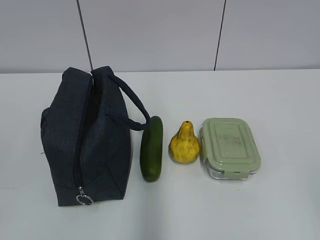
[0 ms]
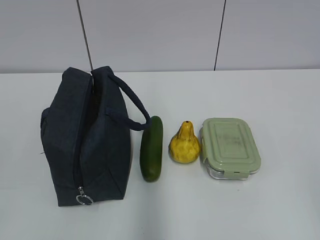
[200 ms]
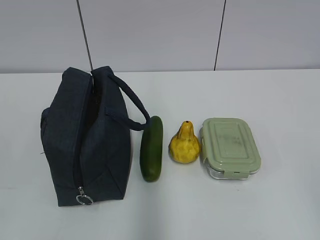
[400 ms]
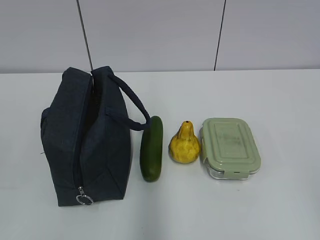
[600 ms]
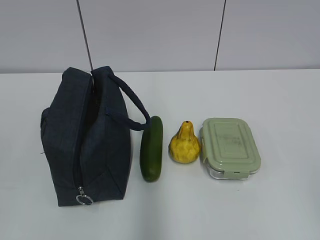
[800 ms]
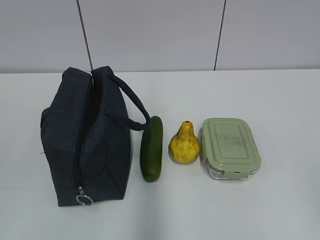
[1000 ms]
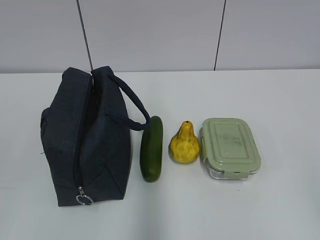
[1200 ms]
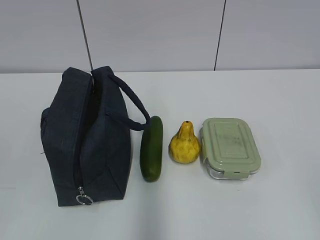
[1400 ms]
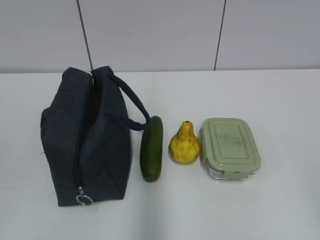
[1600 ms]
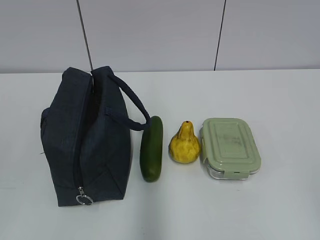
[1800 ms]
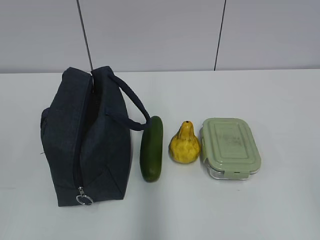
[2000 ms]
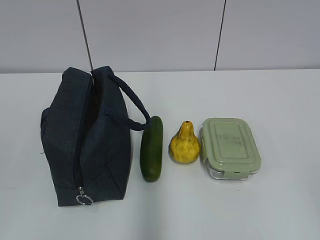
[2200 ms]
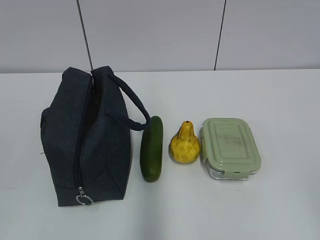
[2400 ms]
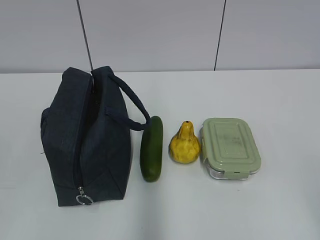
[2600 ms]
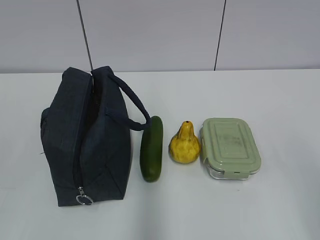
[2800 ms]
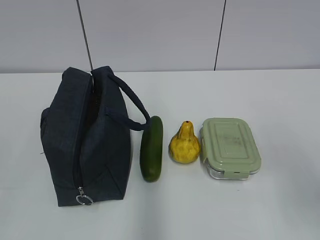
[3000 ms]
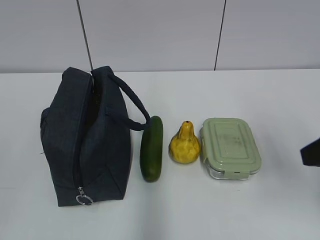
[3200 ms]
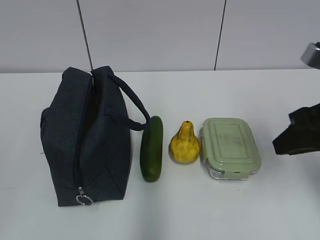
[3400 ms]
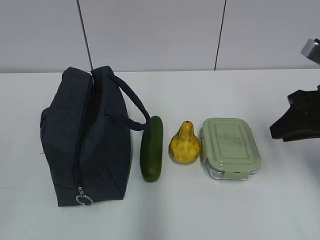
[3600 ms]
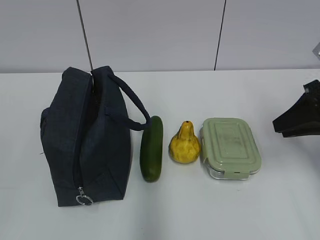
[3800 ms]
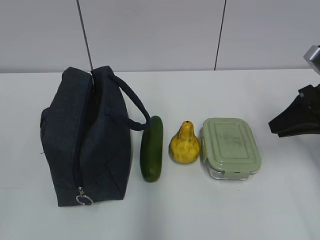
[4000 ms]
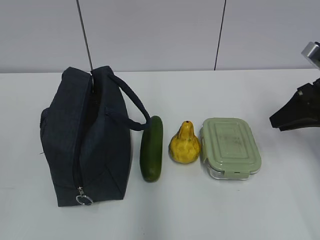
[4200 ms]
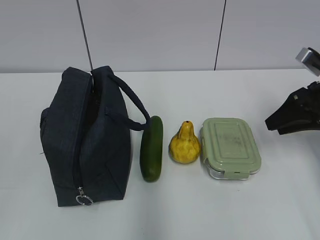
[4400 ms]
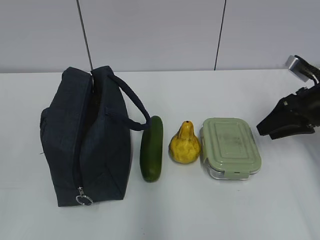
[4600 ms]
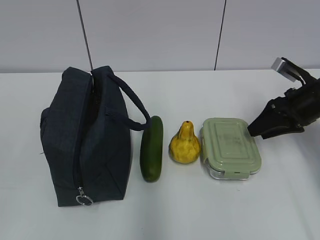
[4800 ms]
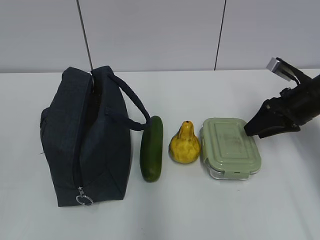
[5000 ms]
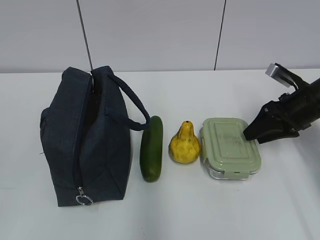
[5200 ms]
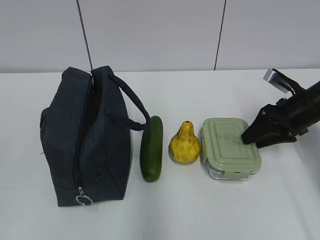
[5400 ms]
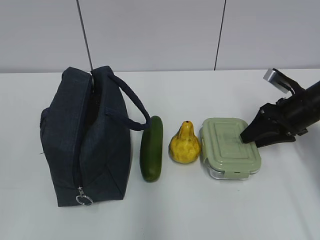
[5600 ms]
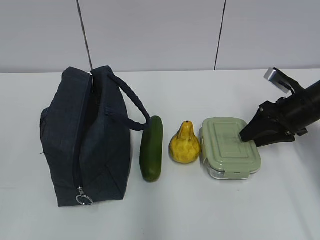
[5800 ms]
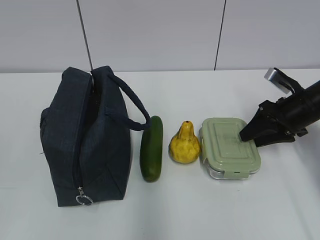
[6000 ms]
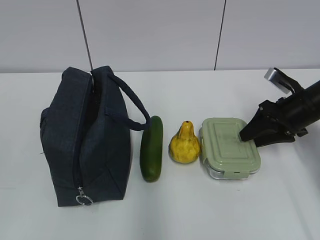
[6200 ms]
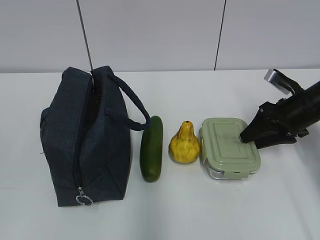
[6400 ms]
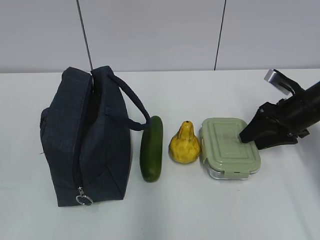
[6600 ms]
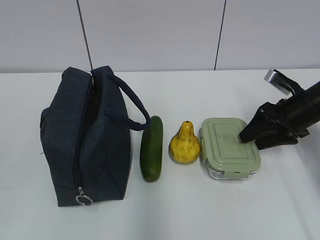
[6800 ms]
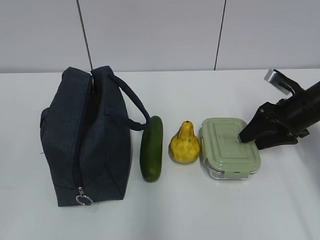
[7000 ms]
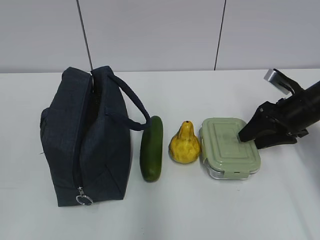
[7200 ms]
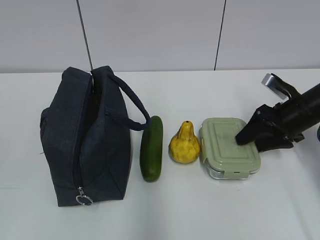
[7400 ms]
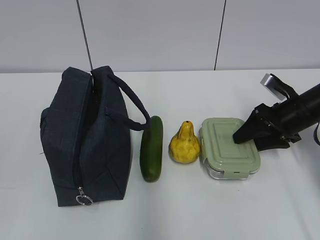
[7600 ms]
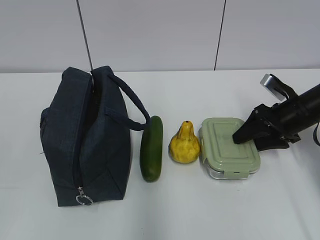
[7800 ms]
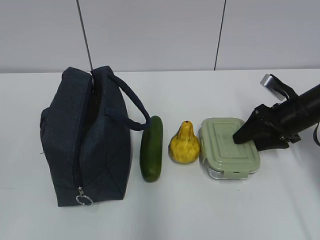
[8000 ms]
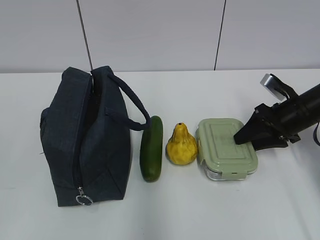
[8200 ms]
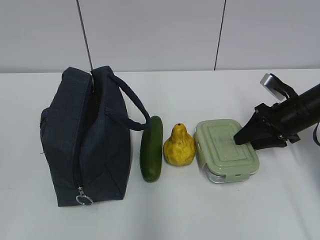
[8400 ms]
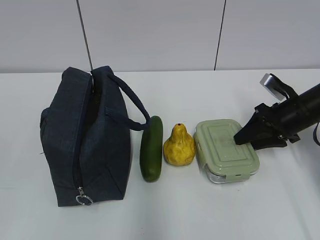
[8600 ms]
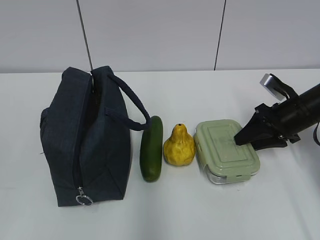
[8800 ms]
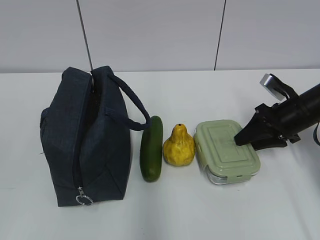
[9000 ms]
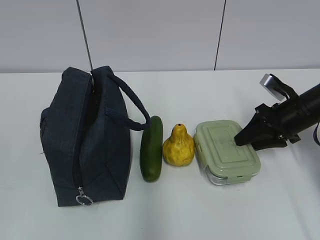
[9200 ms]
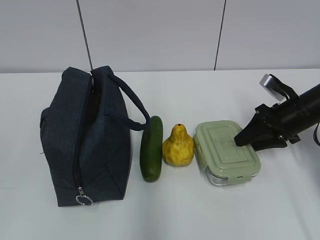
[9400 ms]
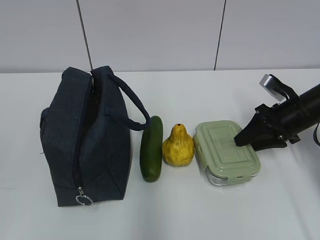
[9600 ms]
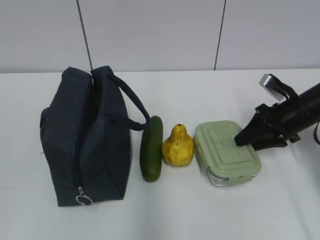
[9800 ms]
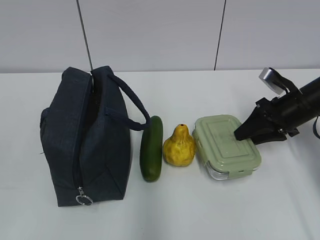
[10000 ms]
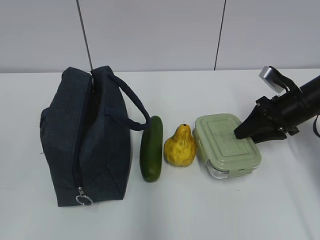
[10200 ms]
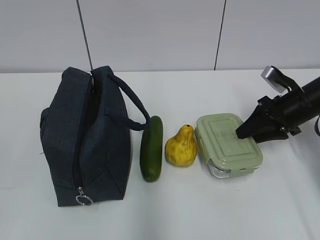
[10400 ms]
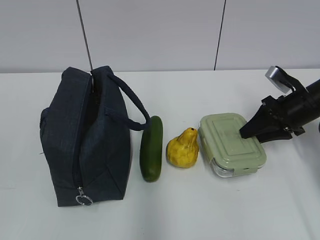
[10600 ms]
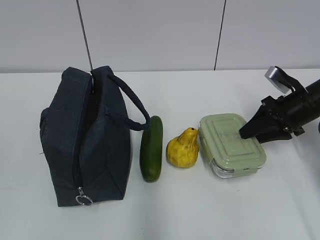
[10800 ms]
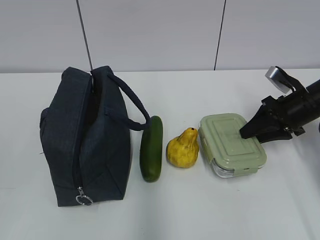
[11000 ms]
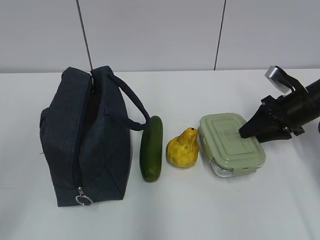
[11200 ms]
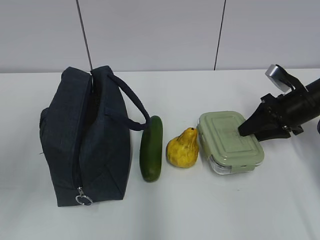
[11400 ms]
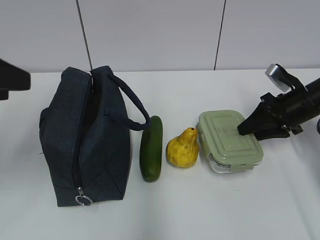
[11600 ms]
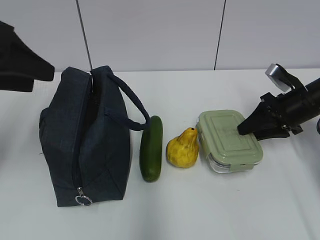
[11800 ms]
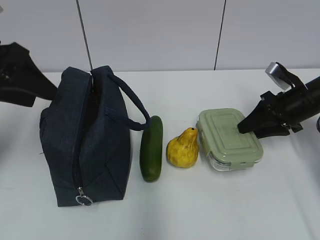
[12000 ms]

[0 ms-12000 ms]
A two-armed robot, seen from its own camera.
Step, 0 ms to 8200 ms: Grab the lunch box with your right hand.
1600 ms to 3000 ms: The right gripper shifts roughly 15 cm forward.
3000 ms to 4400 ms: The right gripper moves forward and downward, approximately 25 cm.
4400 ms to 6000 ms: The right gripper shifts by some 5 cm.
6000 ms to 7600 ms: The grippers stay close to where they were, moving slightly.
7600 ms to 9000 ms: Both grippers stay about where they are.
9000 ms to 10400 ms: The grippers move only a little.
10400 ms to 12000 ms: The left gripper is displaced forward by about 30 cm, and opens.

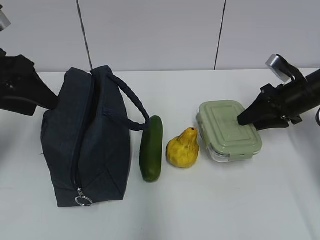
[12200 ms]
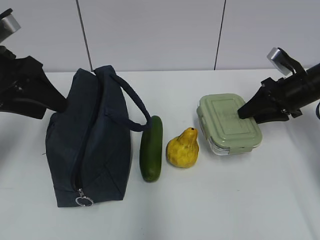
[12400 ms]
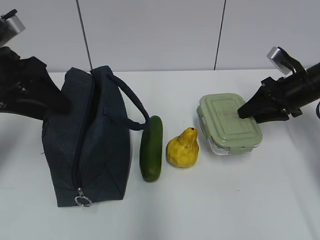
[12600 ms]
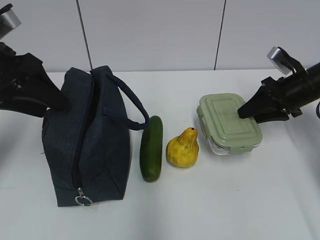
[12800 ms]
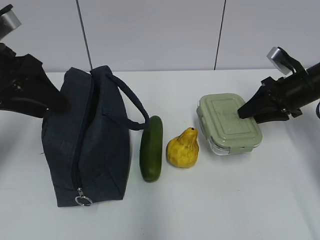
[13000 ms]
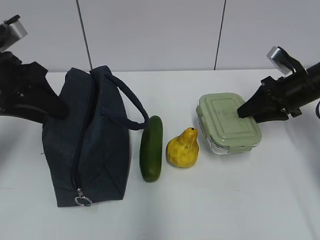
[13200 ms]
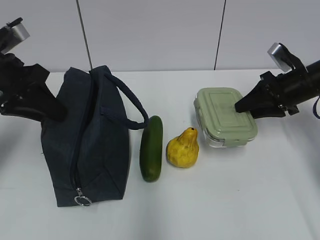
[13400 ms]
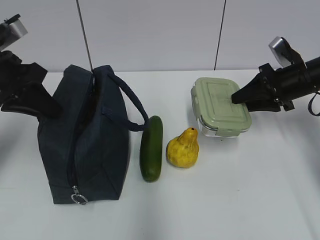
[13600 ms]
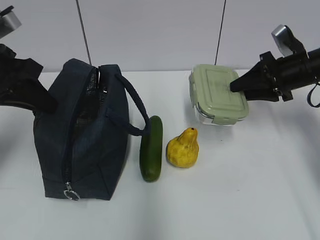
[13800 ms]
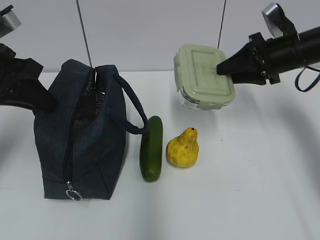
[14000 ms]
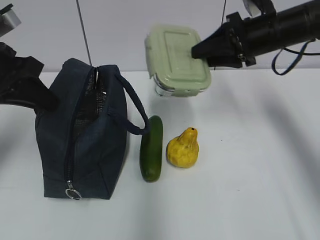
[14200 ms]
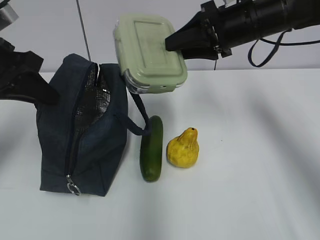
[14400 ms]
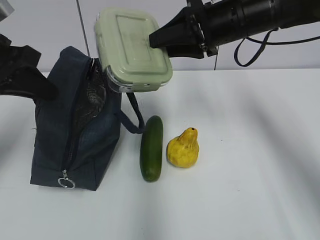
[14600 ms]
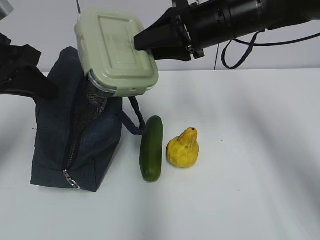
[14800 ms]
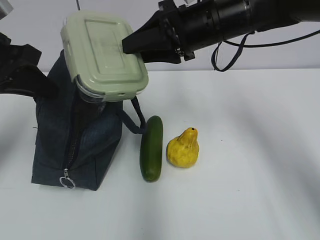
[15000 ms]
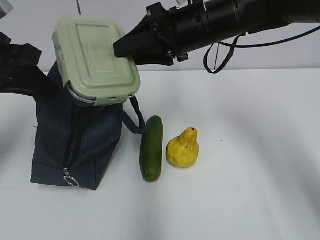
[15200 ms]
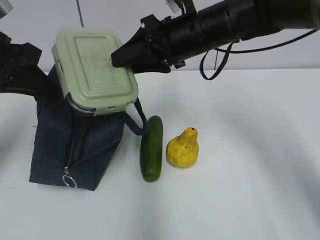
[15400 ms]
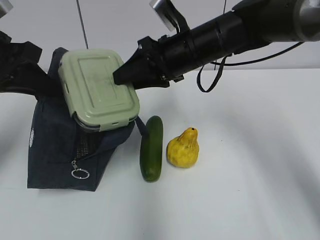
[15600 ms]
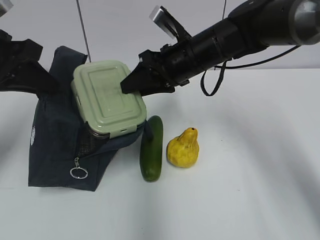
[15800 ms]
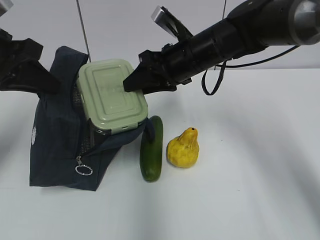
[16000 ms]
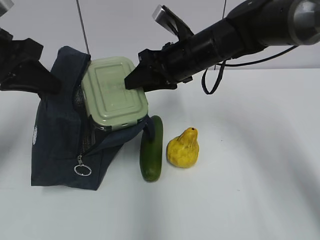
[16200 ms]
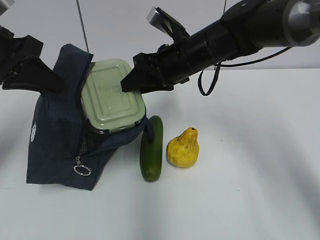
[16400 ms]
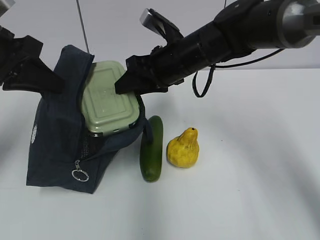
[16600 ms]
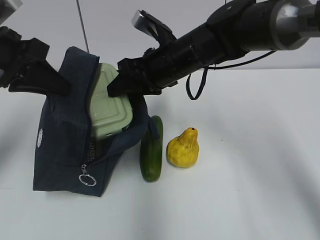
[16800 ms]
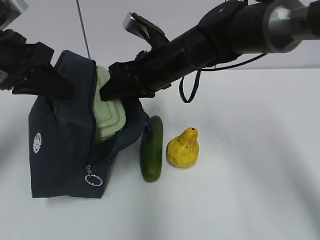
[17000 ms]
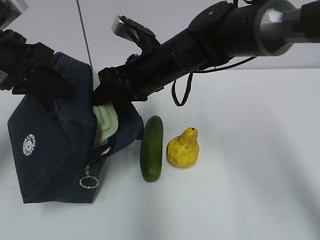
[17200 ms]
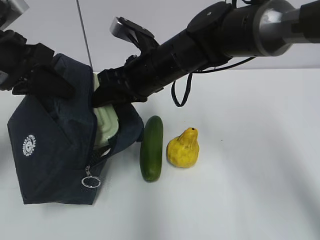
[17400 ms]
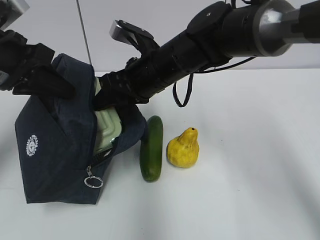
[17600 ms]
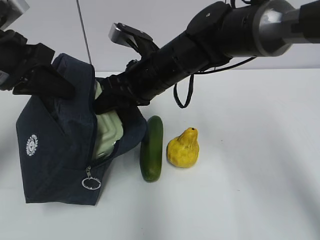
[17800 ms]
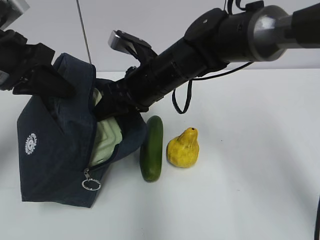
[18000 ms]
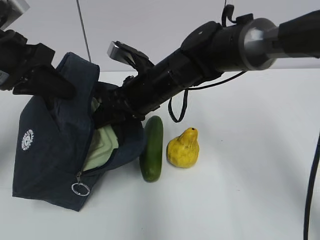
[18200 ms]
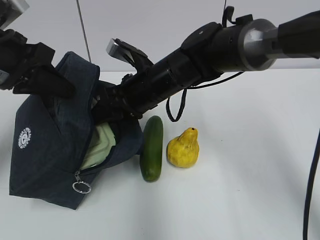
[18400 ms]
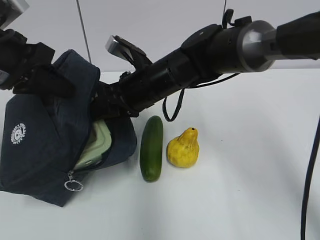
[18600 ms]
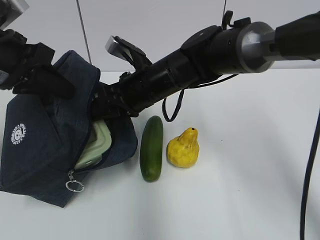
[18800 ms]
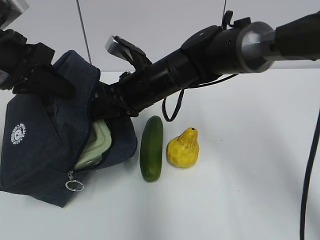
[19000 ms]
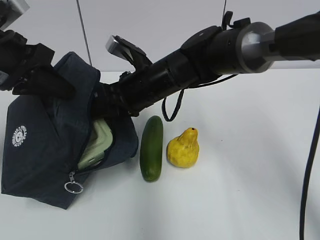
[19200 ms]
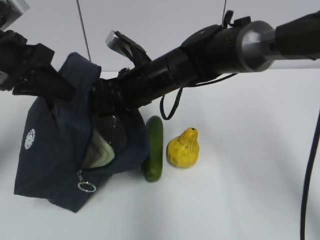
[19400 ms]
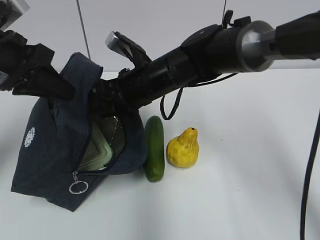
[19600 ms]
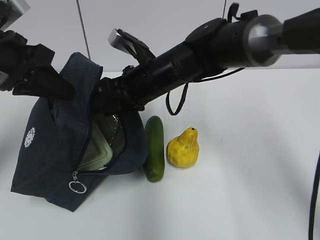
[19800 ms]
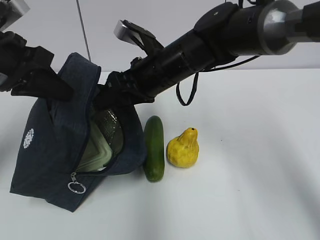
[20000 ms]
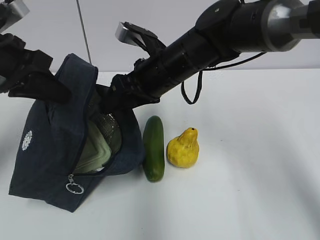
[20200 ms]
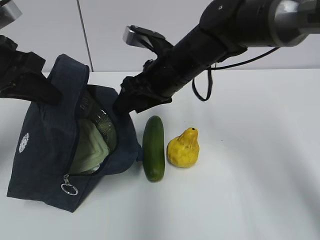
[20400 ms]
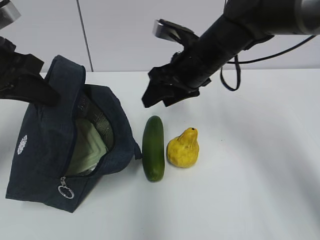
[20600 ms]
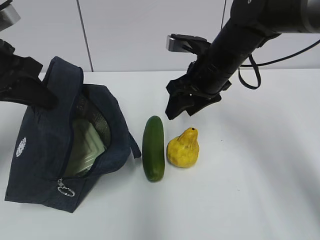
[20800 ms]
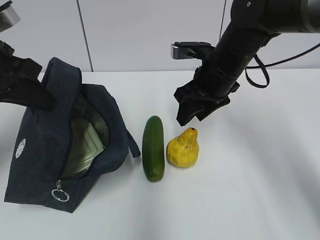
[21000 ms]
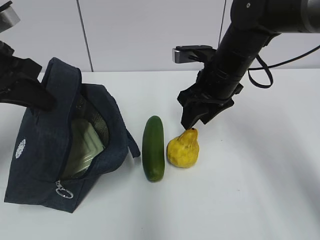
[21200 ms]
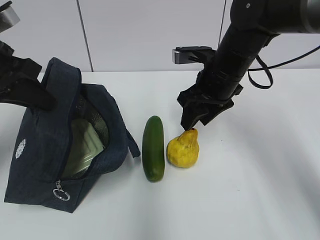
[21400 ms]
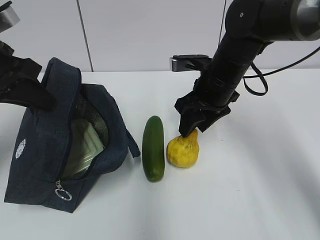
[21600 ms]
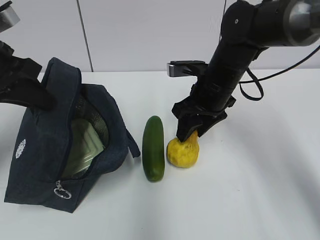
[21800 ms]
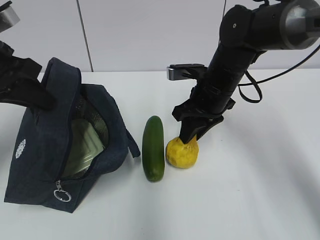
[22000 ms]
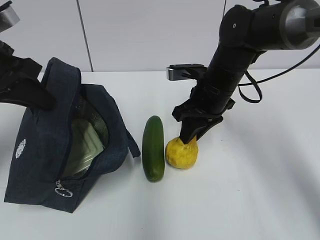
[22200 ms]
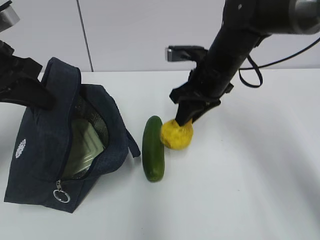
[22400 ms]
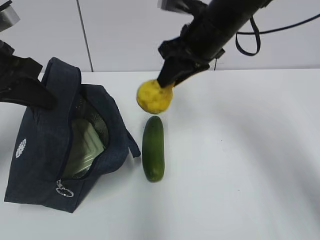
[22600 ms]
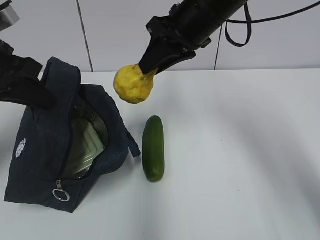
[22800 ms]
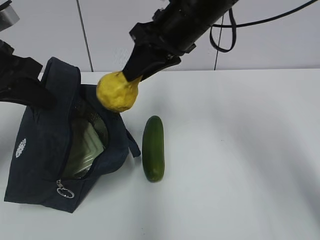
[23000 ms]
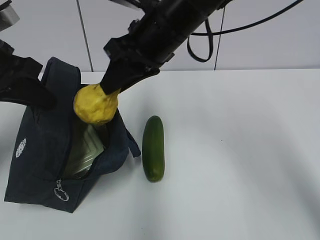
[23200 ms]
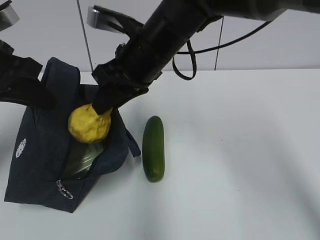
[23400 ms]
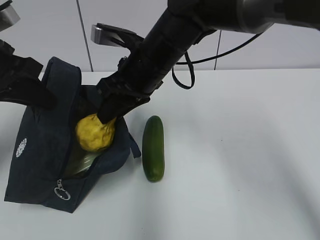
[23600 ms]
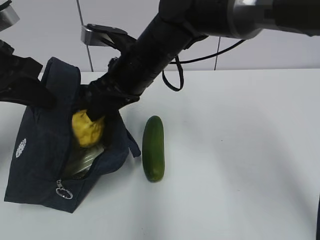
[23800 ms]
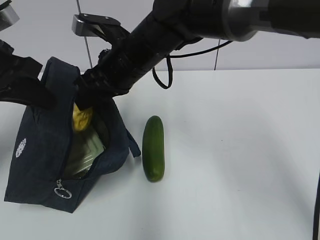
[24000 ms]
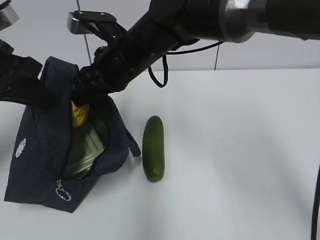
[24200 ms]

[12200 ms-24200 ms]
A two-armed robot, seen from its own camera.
Step, 12200 ms to 15800 ms: Grab the lunch bag with your left hand.
Step, 16000 ms to 20200 ms: Place it into the bag with your right hand.
Step, 20400 ms to 22000 ms: Grab the pear with your right hand.
12200 ms to 13800 ms: The left gripper closes up.
13800 ms to 15200 ms: The right gripper moves to the left and upward, approximately 20 cm.
15200 ms to 16600 ms: The right gripper shifts approximately 5 cm downward.
16600 ms to 18200 ms: The right gripper ends up about 5 cm from where it was.
18200 ms to 19800 ms: The grippers make only small movements.
19800 ms to 21200 ms: The right gripper shifts some 10 cm to the right.
21200 ms to 22600 ms: The right gripper moves upward, about 10 cm, and closes.
22600 ms to 24200 ms: The right gripper moves to the left, approximately 10 cm.
